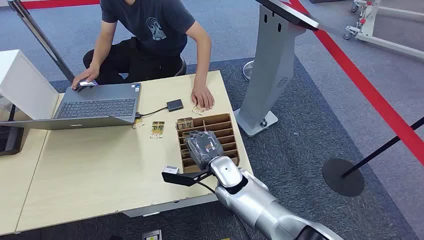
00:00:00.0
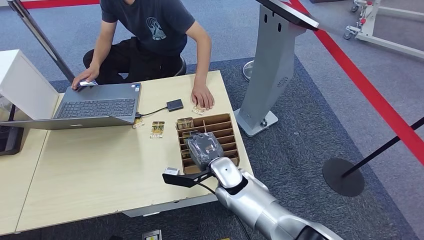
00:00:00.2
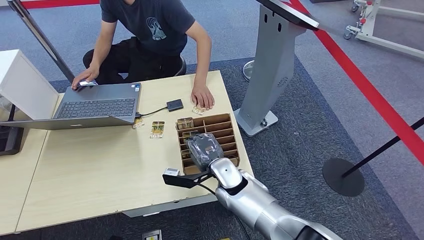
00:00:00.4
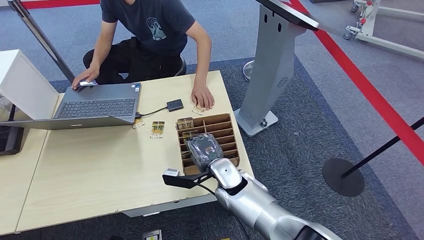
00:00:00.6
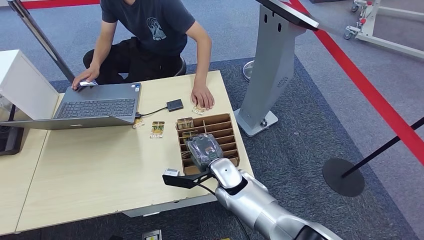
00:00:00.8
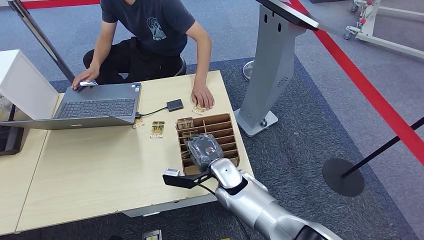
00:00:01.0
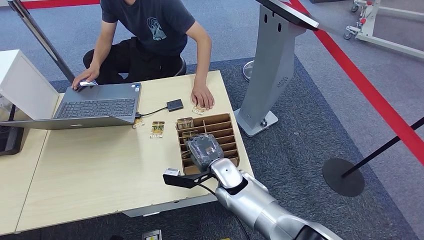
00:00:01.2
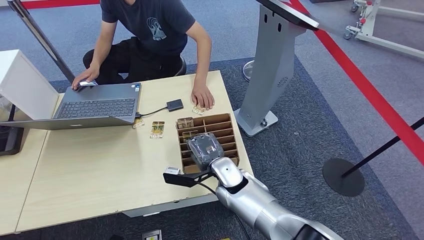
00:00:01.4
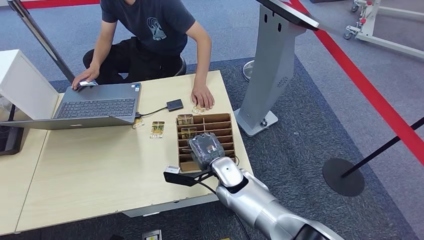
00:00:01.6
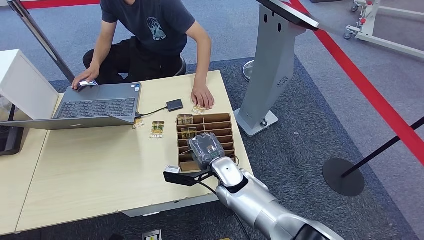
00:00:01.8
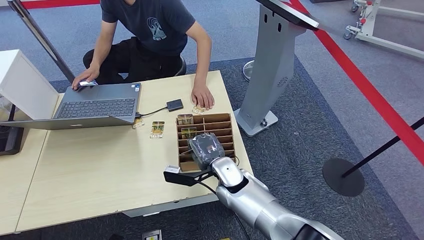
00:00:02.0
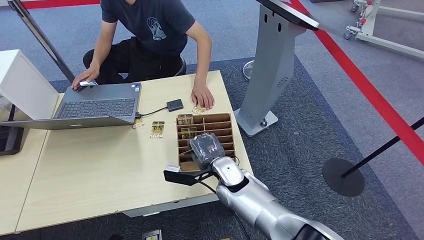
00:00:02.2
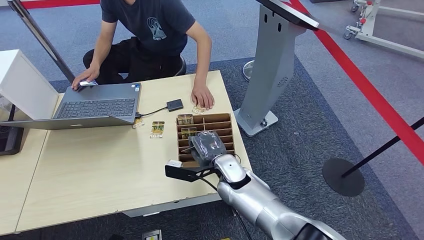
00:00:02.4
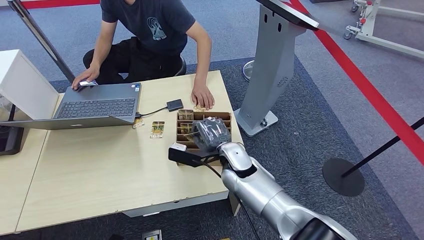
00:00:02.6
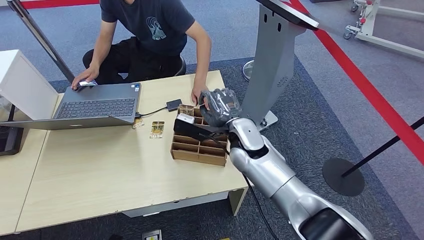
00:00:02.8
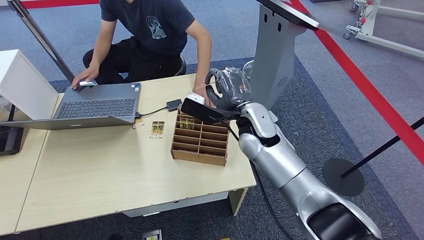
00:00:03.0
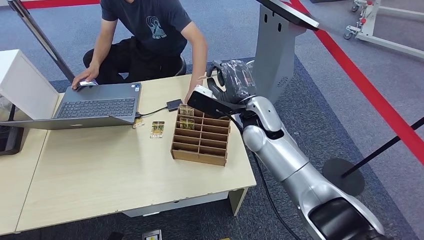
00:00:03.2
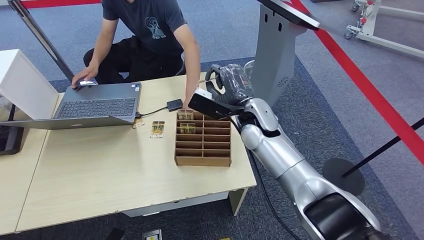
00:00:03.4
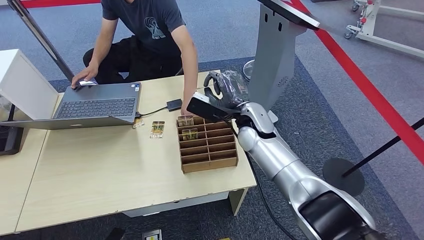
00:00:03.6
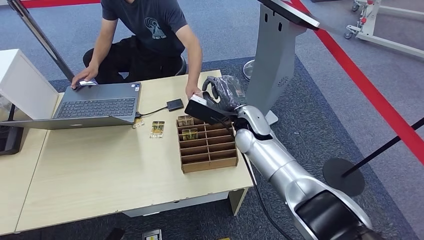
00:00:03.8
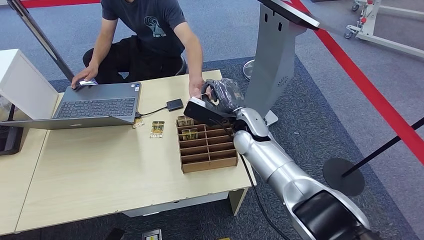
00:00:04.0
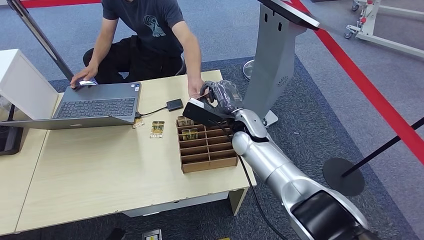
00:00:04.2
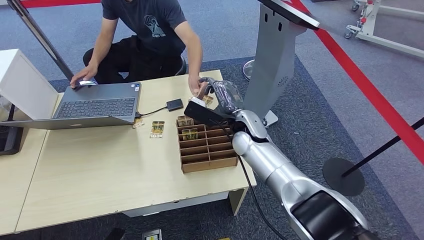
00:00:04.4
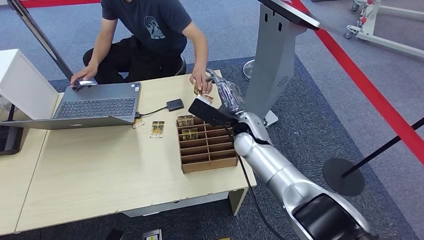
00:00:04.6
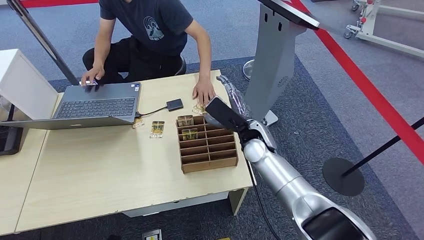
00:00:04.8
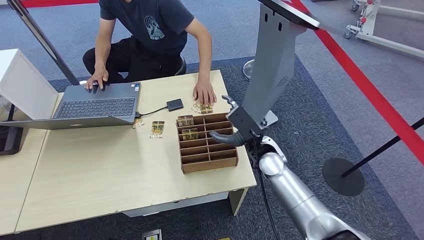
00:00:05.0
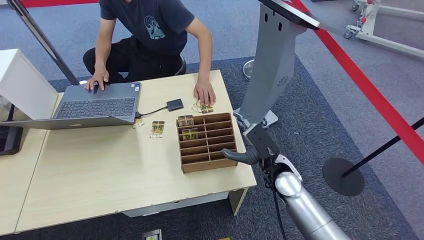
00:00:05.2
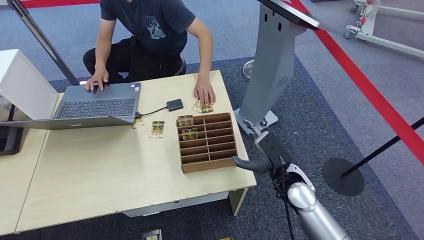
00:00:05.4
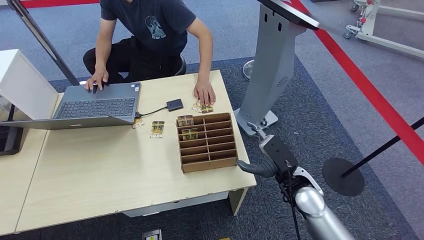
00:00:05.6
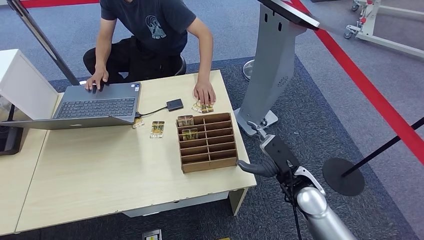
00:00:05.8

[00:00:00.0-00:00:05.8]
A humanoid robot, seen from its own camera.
Step, 00:00:00.0 to 00:00:02.6: Pick up the key card from the card box.
Step, 00:00:02.8 to 00:00:05.8: Hand the key card to the target.
00:00:01.4 to 00:00:02.8: The right hand heads upward and forward, covering roughly 10 cm.
00:00:04.4 to 00:00:05.8: The right hand moves backward, to the right and downward, approximately 20 cm.

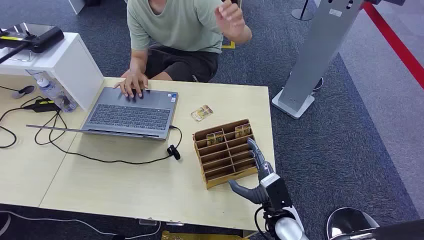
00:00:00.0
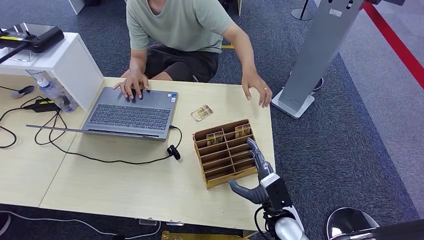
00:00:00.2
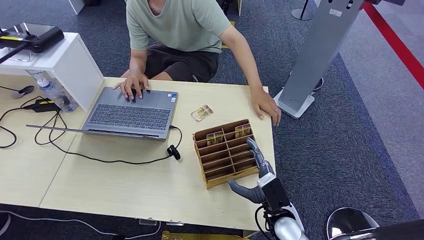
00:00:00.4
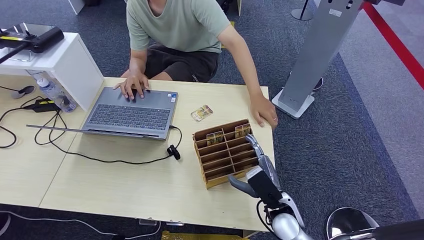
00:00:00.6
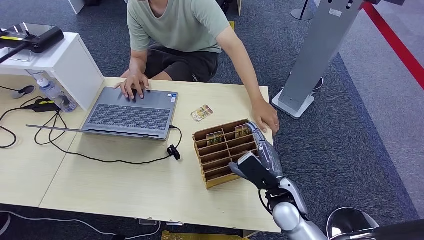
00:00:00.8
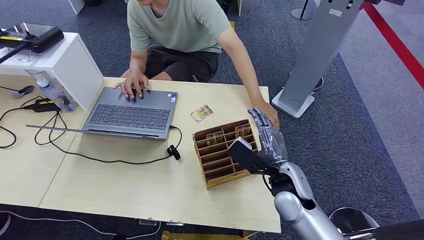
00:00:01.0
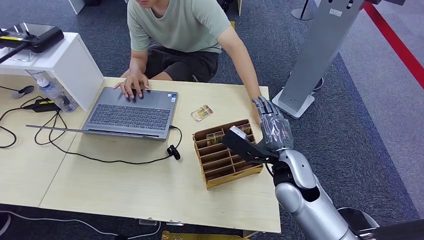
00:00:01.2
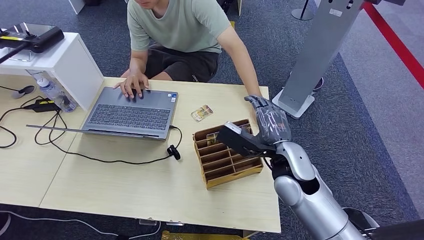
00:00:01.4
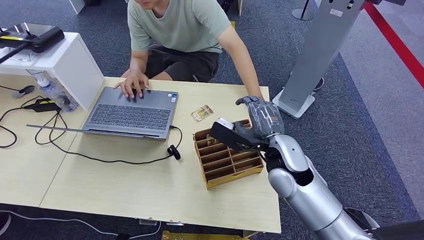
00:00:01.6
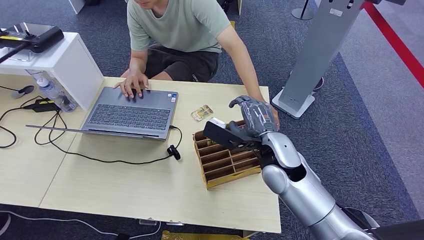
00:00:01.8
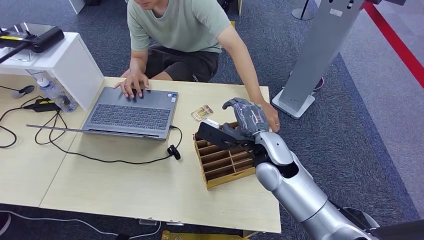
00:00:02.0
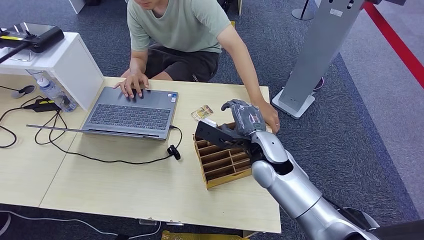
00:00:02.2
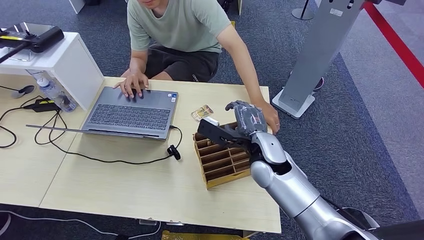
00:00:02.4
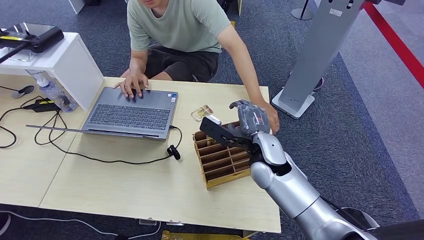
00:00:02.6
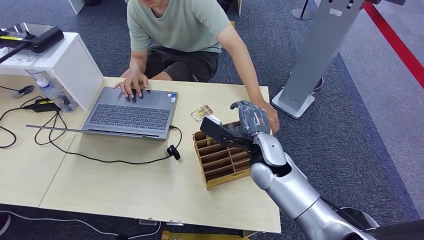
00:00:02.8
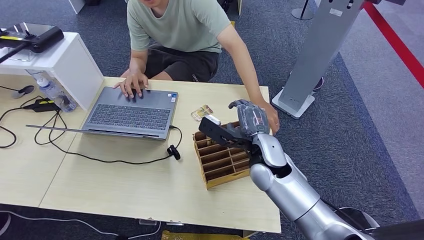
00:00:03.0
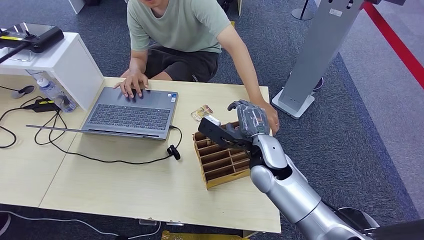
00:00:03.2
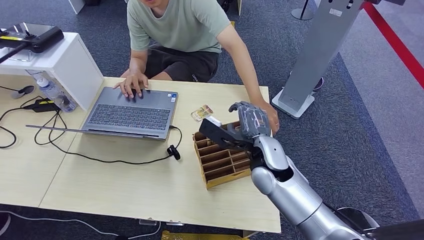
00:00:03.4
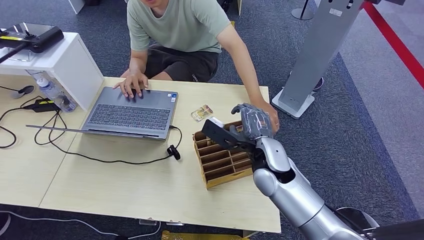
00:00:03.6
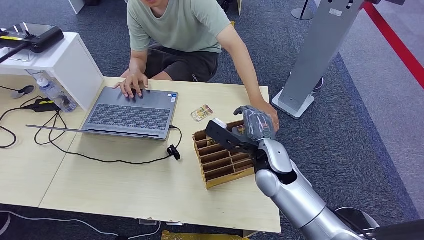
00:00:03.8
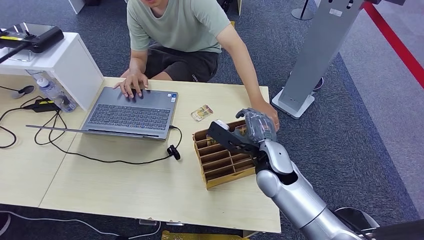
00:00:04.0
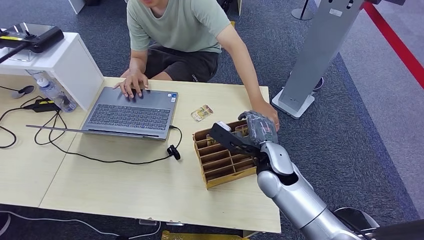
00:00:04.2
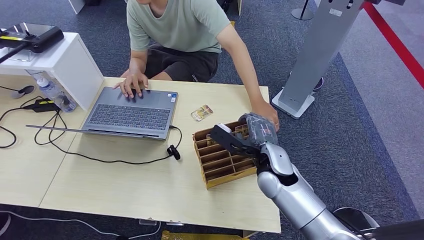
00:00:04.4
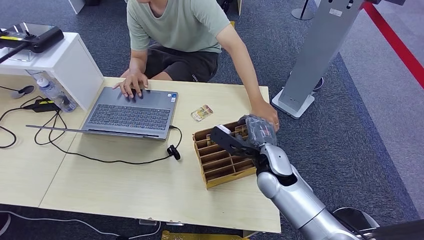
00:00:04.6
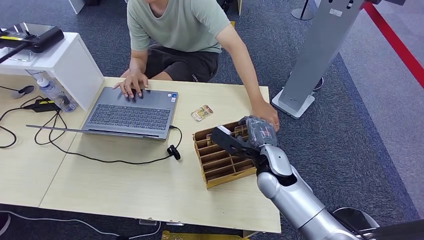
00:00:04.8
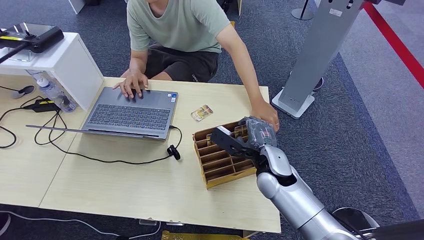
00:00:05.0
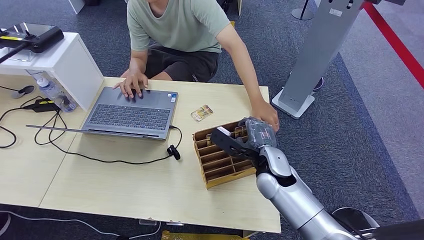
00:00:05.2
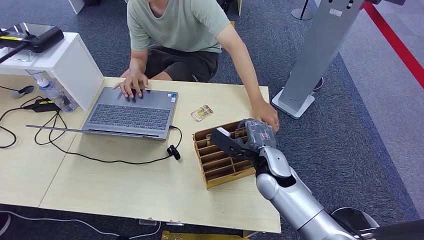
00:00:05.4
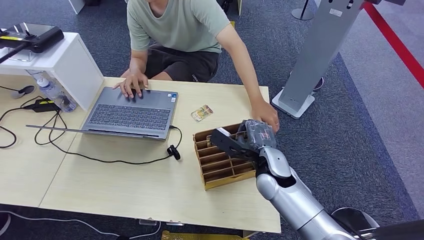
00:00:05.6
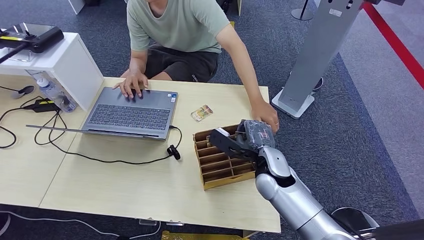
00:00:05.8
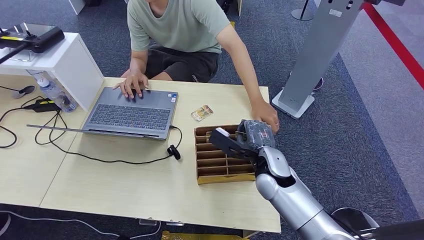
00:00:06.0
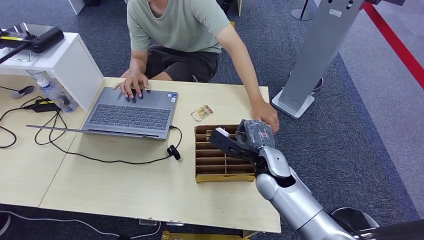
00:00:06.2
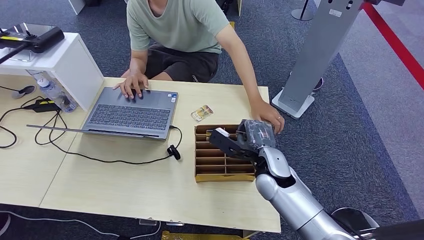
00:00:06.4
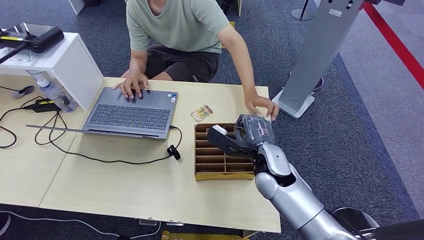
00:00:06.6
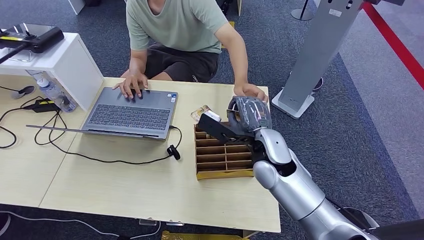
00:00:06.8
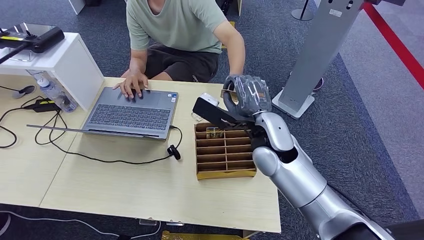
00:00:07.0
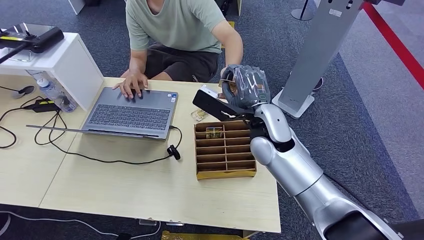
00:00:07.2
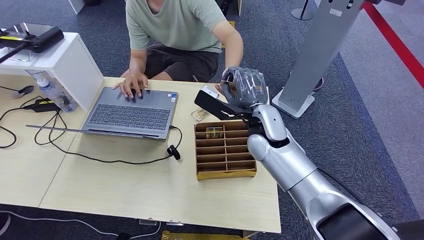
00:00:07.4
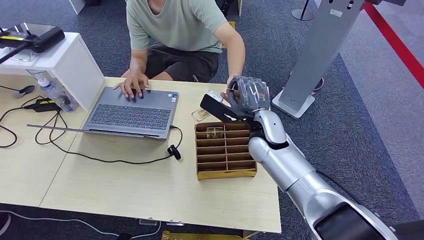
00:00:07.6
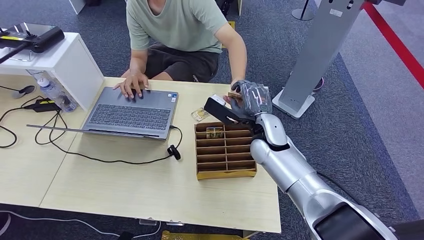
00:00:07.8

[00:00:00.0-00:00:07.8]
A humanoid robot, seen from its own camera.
Step, 00:00:00.0 to 00:00:06.8: Pick up the key card from the card box.
Step, 00:00:07.0 to 00:00:07.8: Hand the key card to the target.
00:00:01.6 to 00:00:03.2: There are only small adjustments of the hands.
00:00:03.2 to 00:00:04.6: The hands move only a little.
00:00:04.6 to 00:00:06.2: The two hands keep their place.
00:00:06.2 to 00:00:07.8: The right hand travels forward and upward by some 10 cm.
